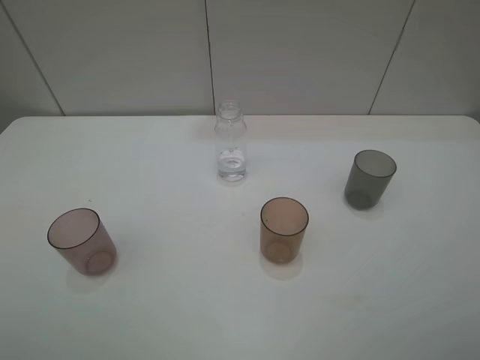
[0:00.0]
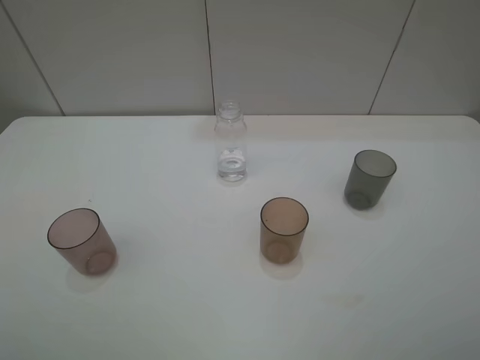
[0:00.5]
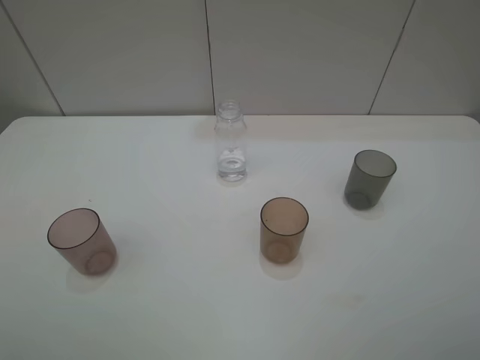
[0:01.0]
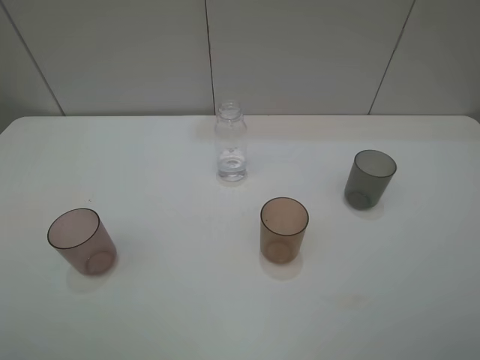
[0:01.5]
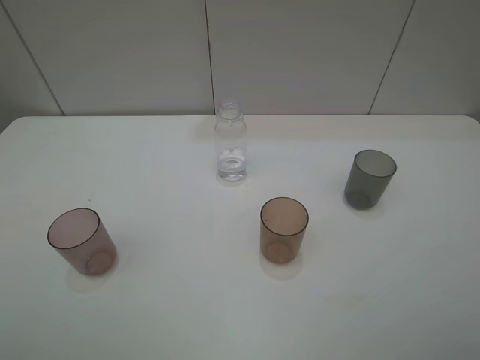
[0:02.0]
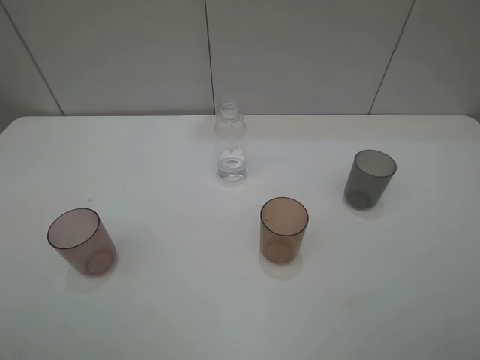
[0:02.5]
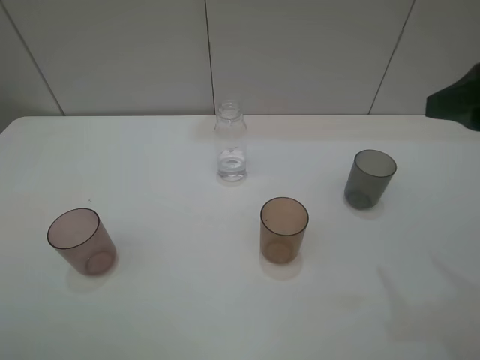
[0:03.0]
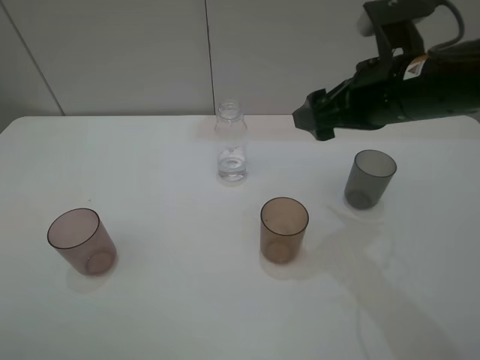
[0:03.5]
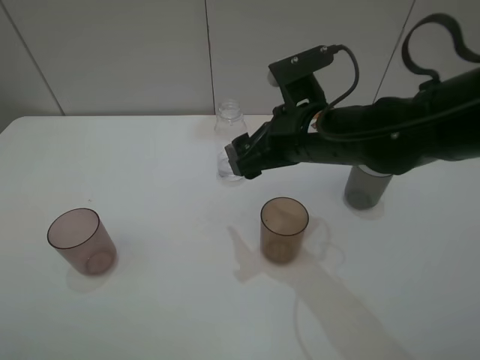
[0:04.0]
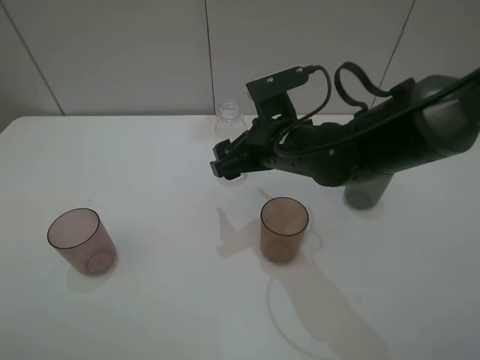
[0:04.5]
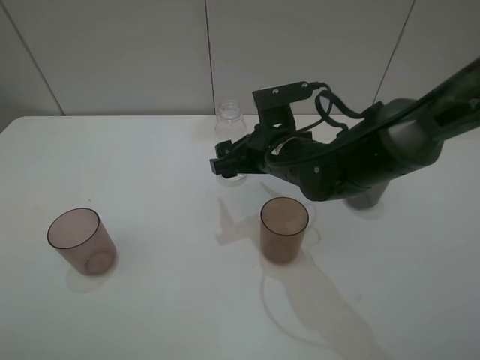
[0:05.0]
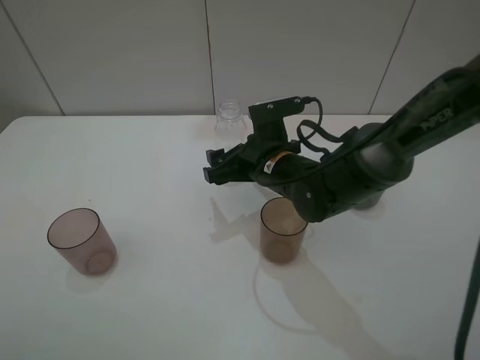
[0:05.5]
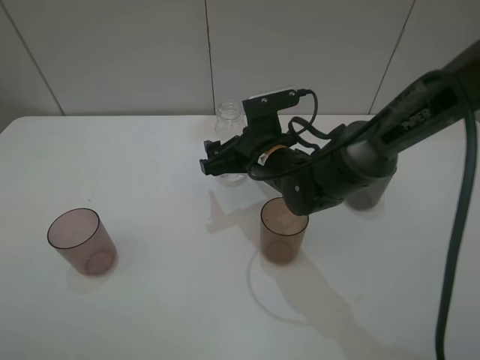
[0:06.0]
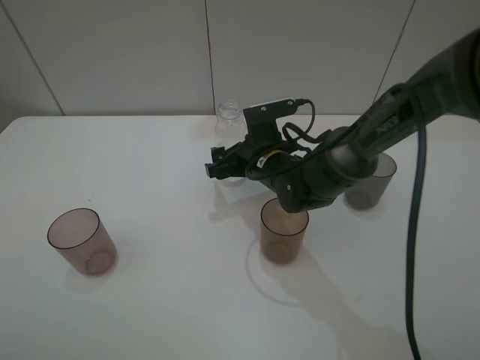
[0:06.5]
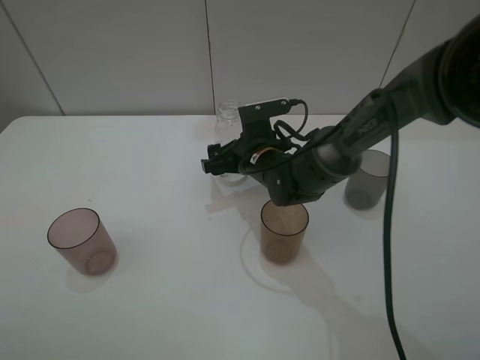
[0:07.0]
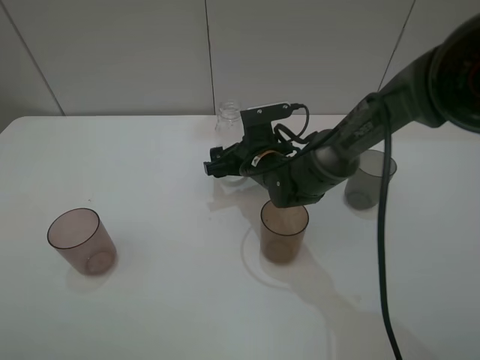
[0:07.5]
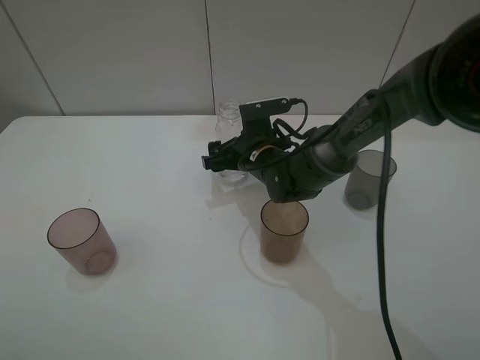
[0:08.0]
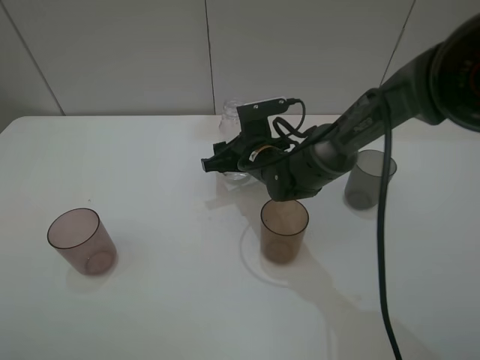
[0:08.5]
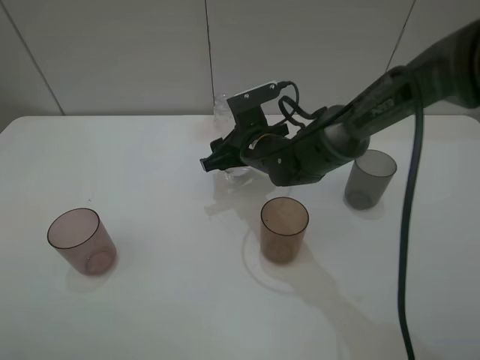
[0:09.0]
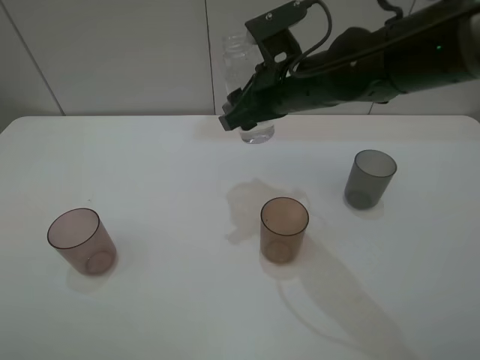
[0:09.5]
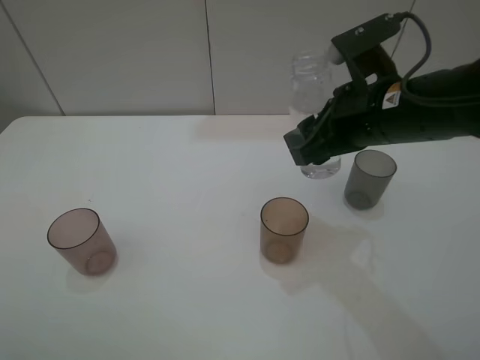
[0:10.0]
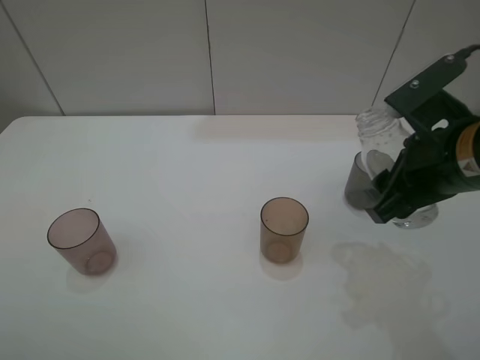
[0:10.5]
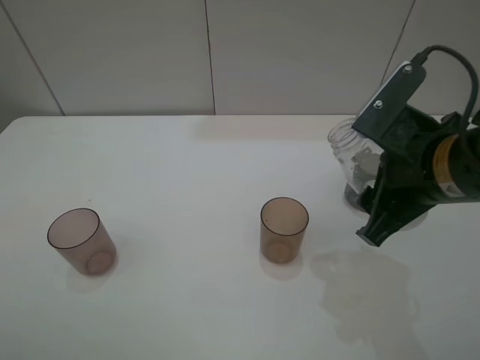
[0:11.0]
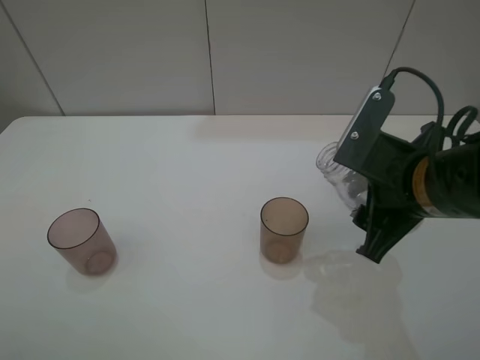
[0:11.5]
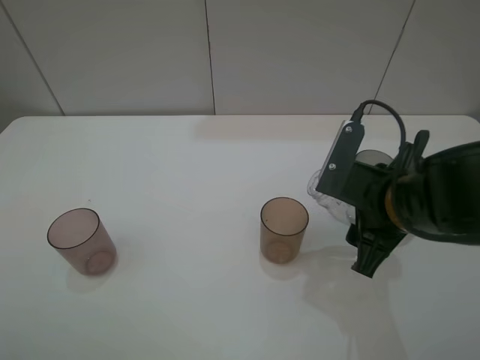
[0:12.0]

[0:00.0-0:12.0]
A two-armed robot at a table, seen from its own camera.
Task of the whole recording: pick up the bottle filled with water and pour water into the middle cup of the three cups.
Step, 0:00.0 to 0:08.5: Grasp the transparent bottle with the right gripper.
0:00.0 to 0:02.0: Neither gripper changes place.
0:02.0 to 0:04.0: The right gripper heads forward and to the left, covering about 35 cm.
0:04.0 to 0:06.0: The right gripper goes roughly 10 cm downward and forward.
0:06.0 to 0:08.0: The right gripper moves some 5 cm.
0:08.0 to 0:10.0: The right gripper moves upward, to the right and backward, roughly 25 cm, and closes its fingers.
0:10.0 to 0:12.0: The right gripper shifts about 10 cm downward and backward.

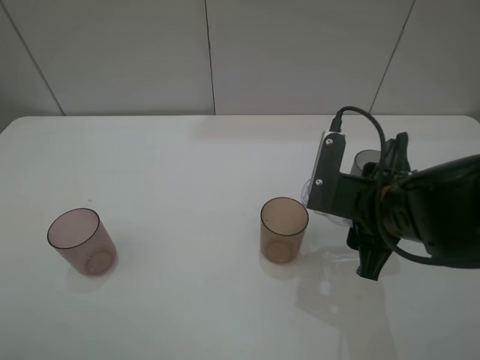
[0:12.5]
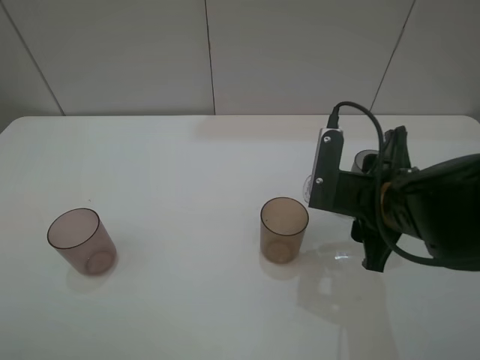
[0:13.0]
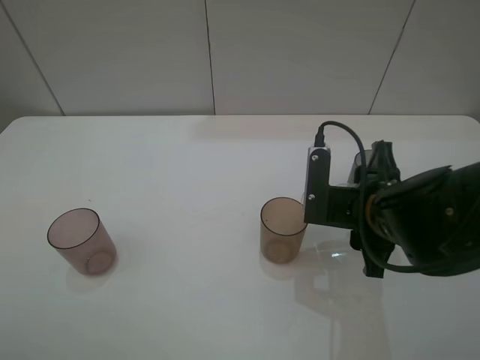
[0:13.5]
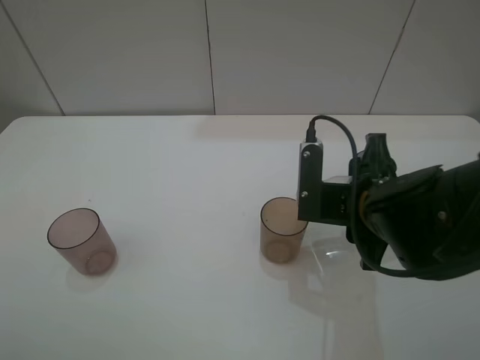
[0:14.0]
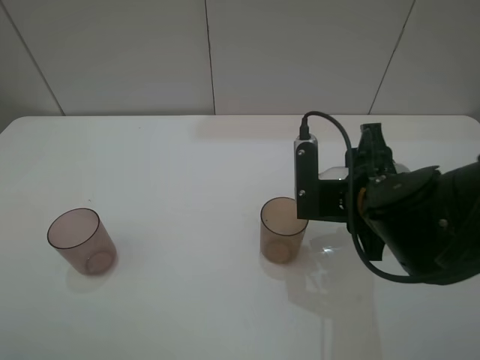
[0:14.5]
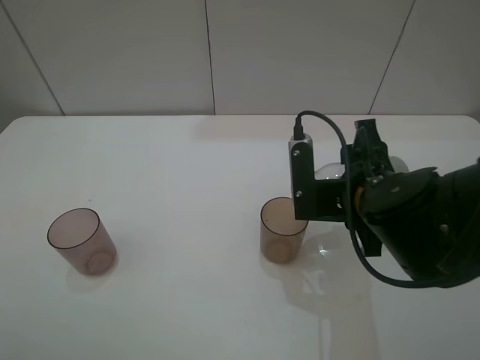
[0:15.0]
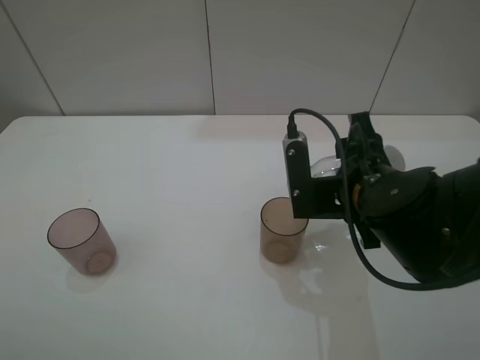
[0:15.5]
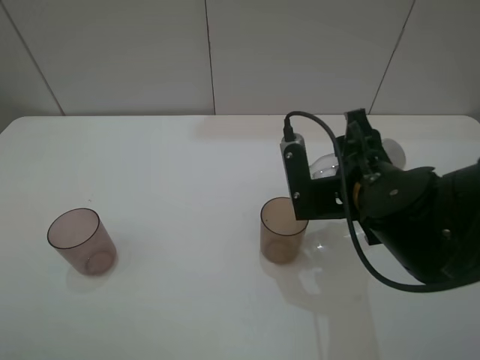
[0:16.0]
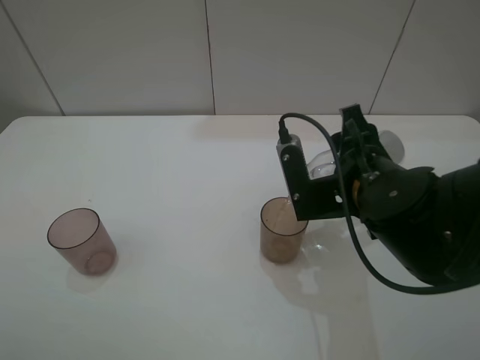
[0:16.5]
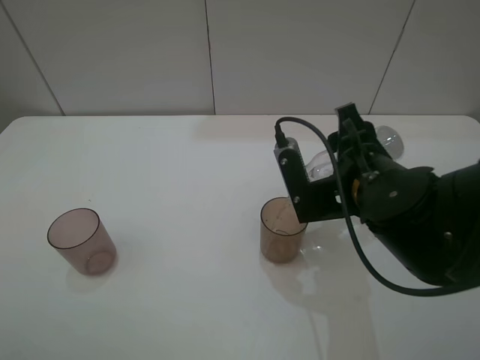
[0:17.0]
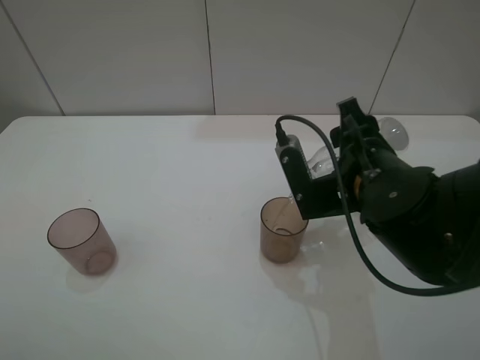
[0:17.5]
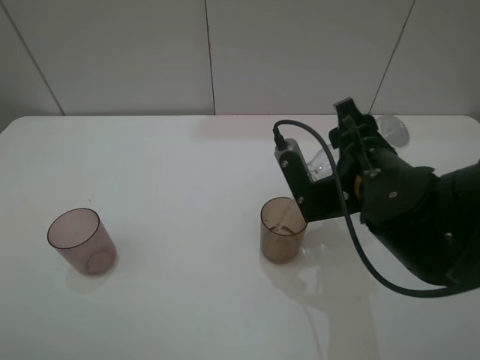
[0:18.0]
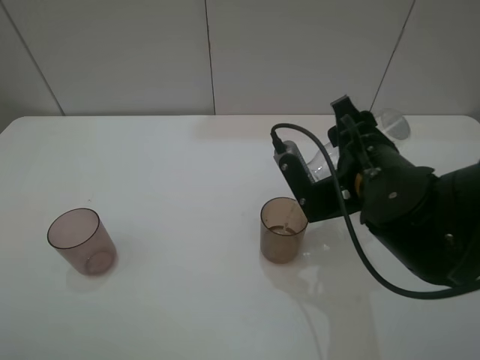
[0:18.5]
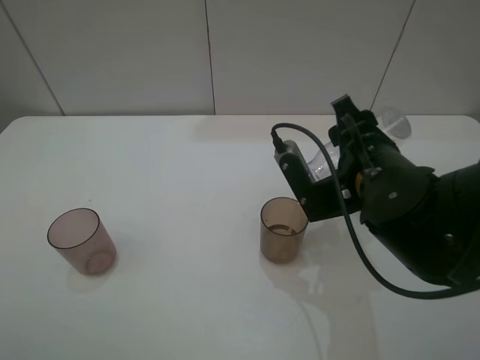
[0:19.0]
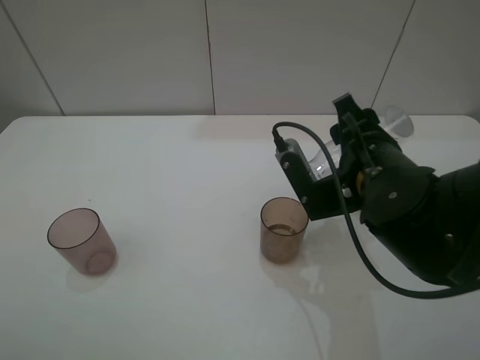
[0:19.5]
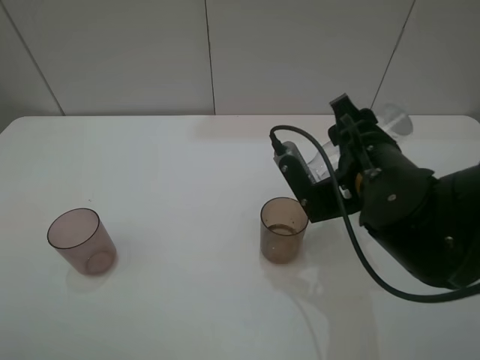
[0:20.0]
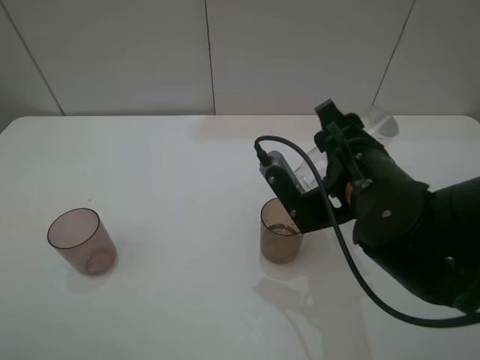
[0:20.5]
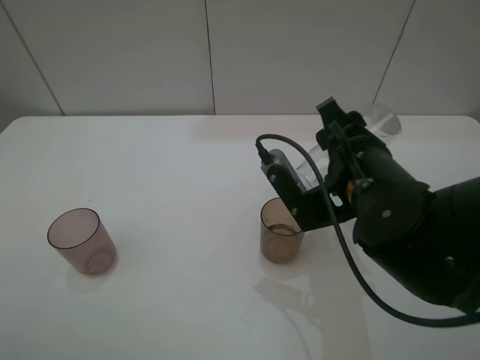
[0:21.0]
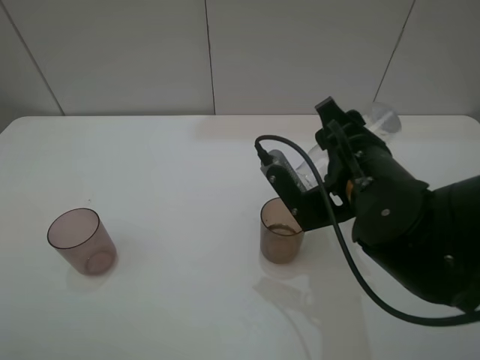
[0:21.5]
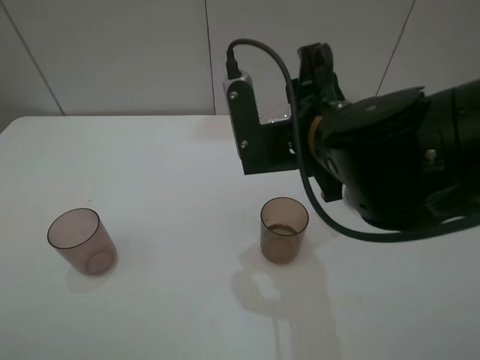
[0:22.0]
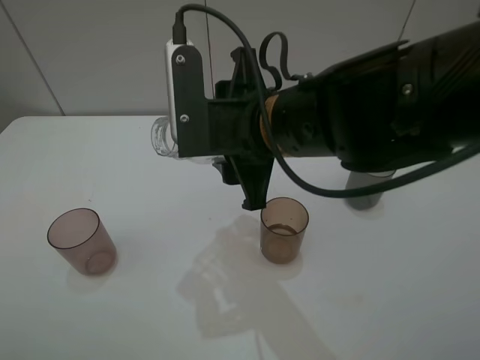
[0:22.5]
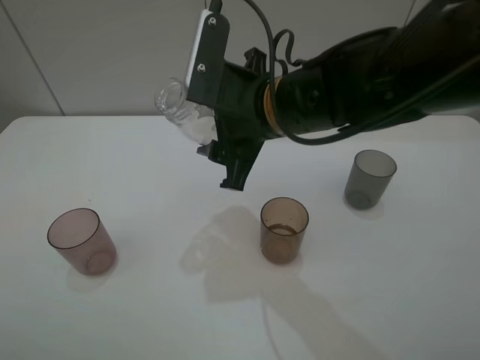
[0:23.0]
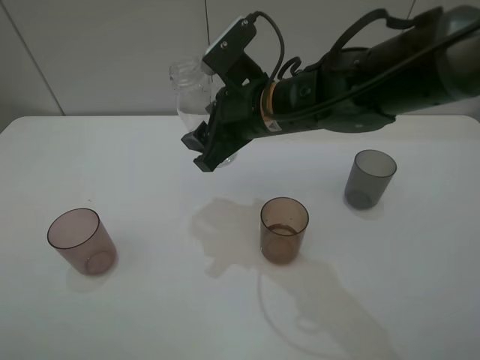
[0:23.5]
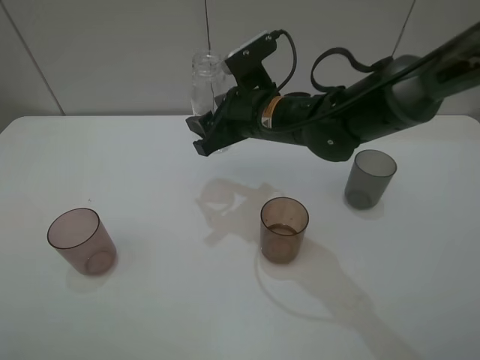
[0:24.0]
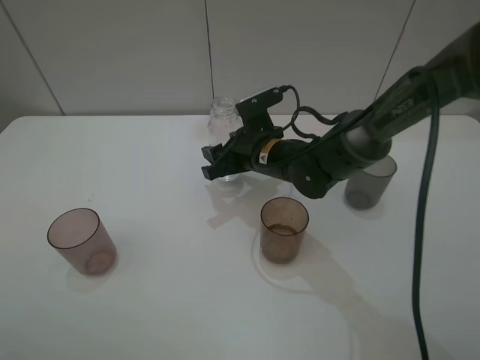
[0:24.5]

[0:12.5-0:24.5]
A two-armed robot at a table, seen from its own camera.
Task of the whole recording: pick up the bottle filled with water and pour water into the middle cup of the three cups.
Step, 0:12.5 to 0:15.5: Pour water from transparent bottle tobrown cup with the right gripper.
0:12.5 to 0:14.5: The grippers stay close to where they were, moving slightly.
0:14.5 to 0:16.5: The grippers move only a little.
0:16.5 to 0:20.5: The grippers stay close to where they were, moving slightly.
0:20.5 to 0:22.5: The right gripper heads to the left, covering approximately 10 cm.
0:22.5 to 0:24.5: The right gripper heads downward and forward, covering approximately 20 cm.

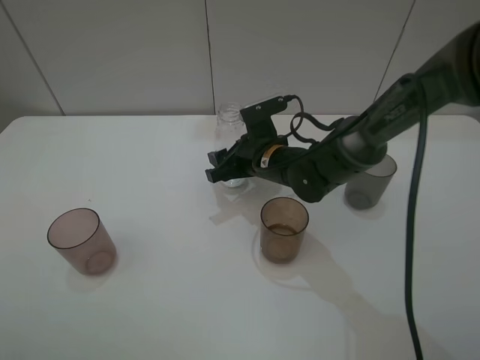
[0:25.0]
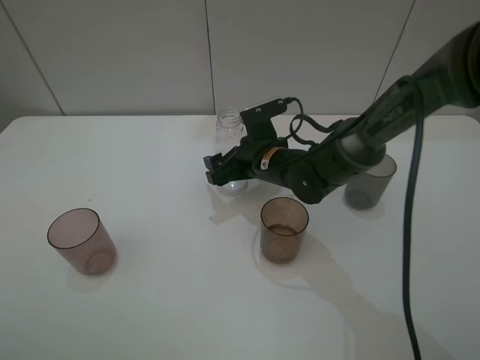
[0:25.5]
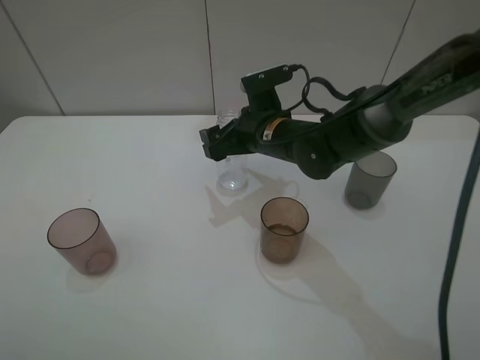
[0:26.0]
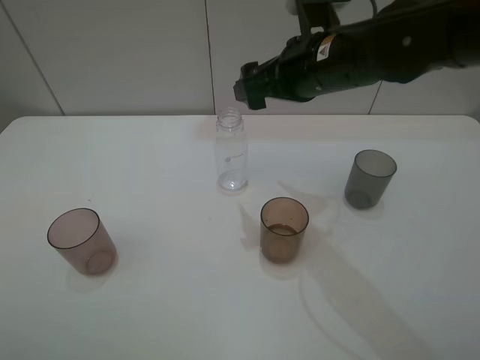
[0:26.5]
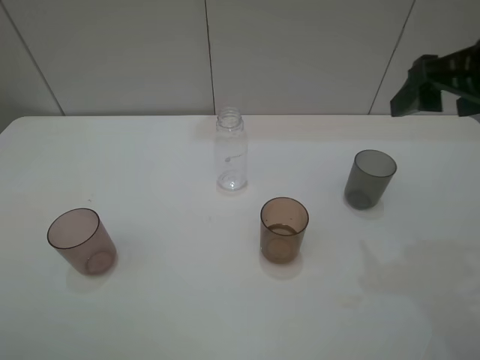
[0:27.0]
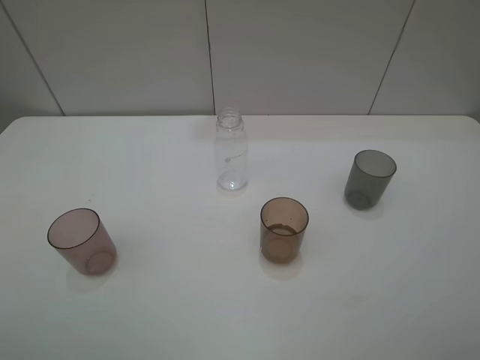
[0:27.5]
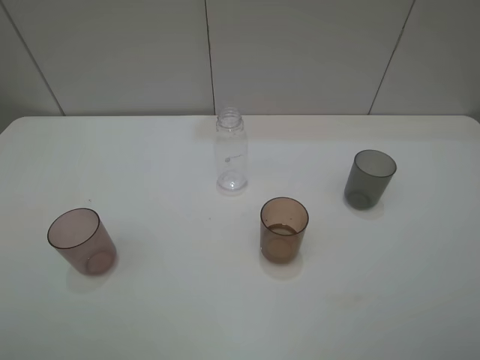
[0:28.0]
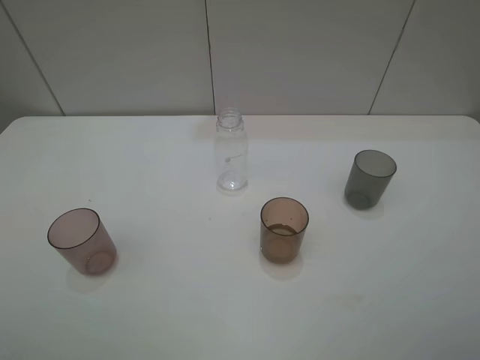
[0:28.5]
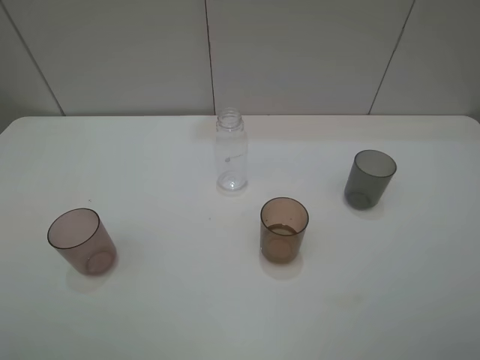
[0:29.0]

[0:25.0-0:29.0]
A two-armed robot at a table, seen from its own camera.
Task of the whole recording: pick up the bottle filled with water and pour water into the middle cup of the three cups.
0:25.0 to 0:27.0: The right gripper shifts about 35 cm upward, to the right and backward, and opens.
0:27.0 to 0:29.0: The right gripper heads backward, covering roughly 20 cm.
